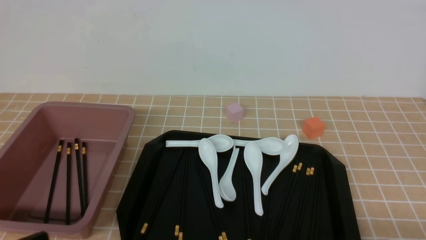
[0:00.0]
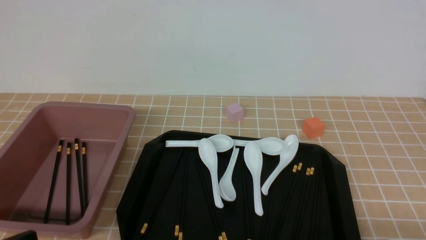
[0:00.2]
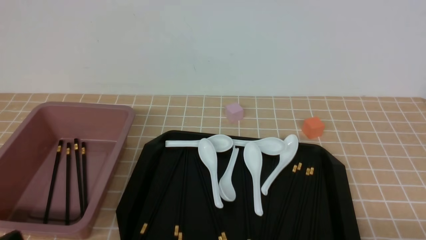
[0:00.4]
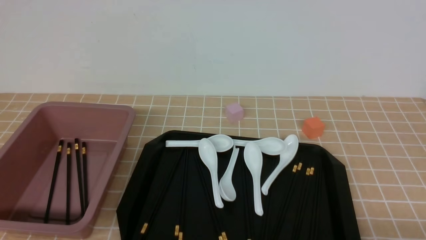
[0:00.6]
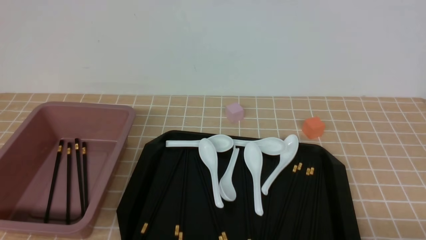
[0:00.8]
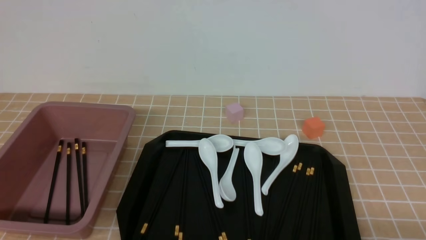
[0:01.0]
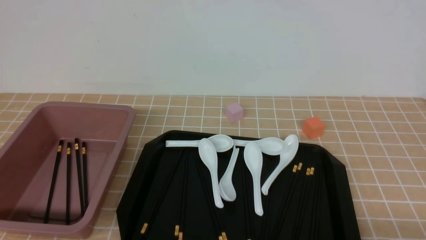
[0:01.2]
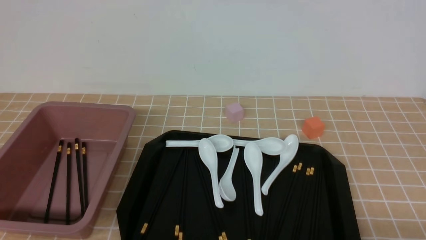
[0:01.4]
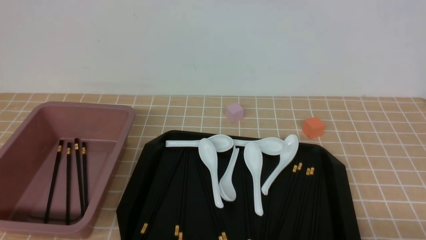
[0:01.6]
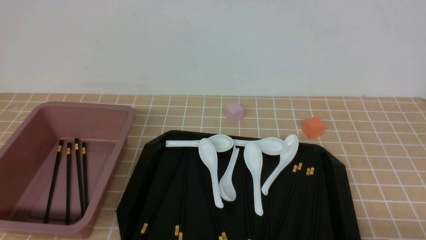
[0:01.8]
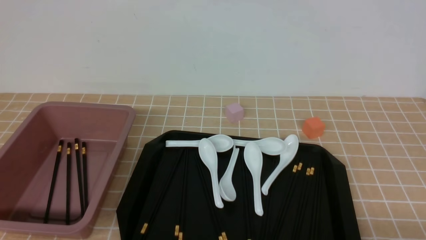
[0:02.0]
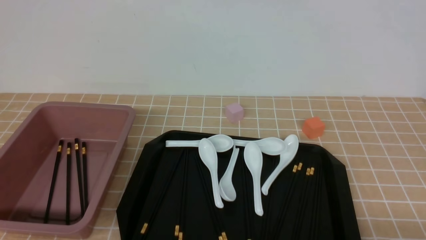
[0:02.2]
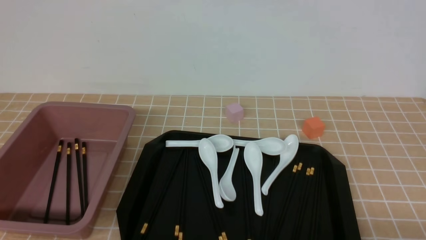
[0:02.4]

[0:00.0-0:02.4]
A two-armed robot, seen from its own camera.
0:01.2 to 0:02.4: Both grippers stay about where they are.
